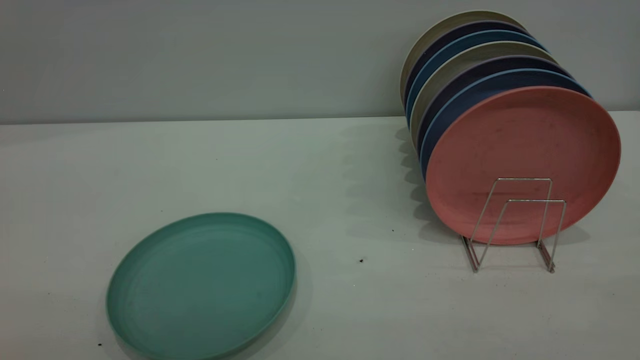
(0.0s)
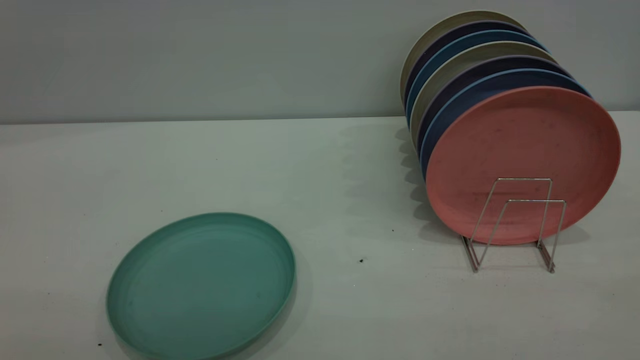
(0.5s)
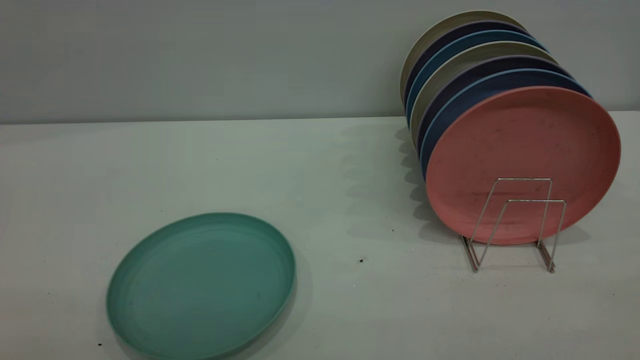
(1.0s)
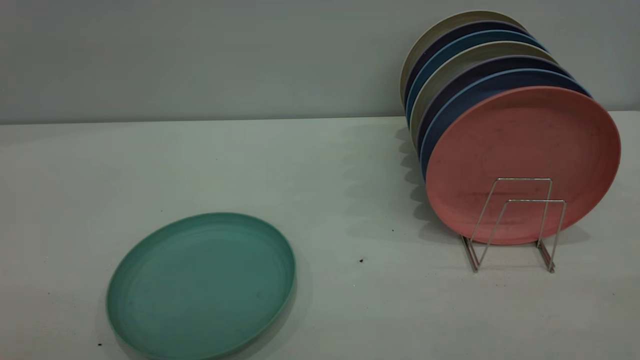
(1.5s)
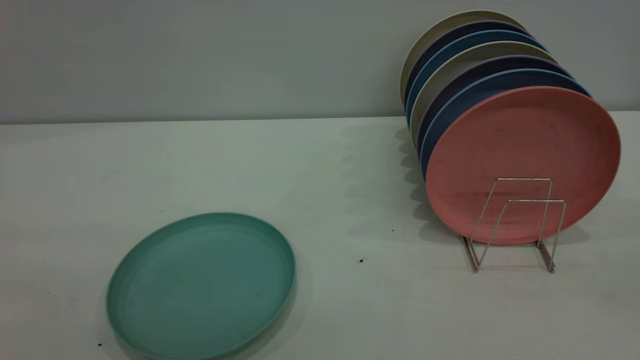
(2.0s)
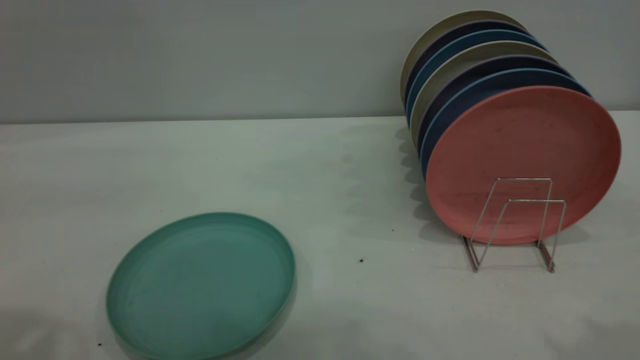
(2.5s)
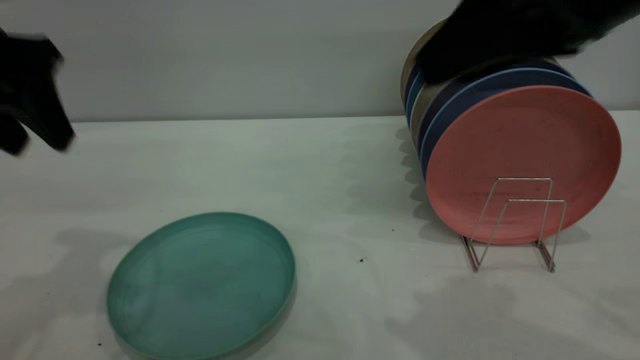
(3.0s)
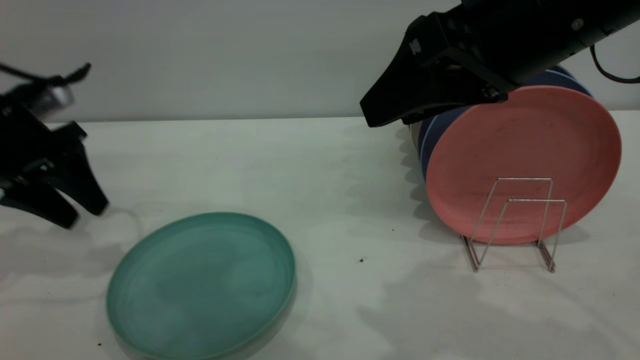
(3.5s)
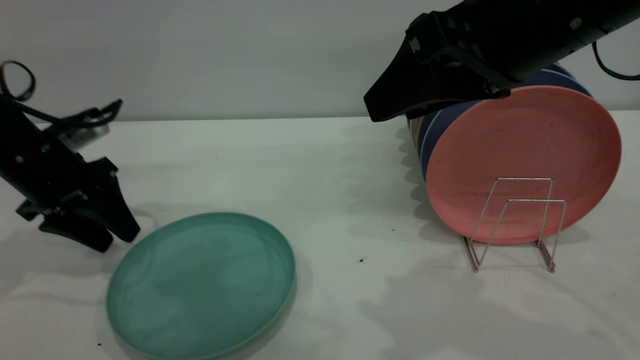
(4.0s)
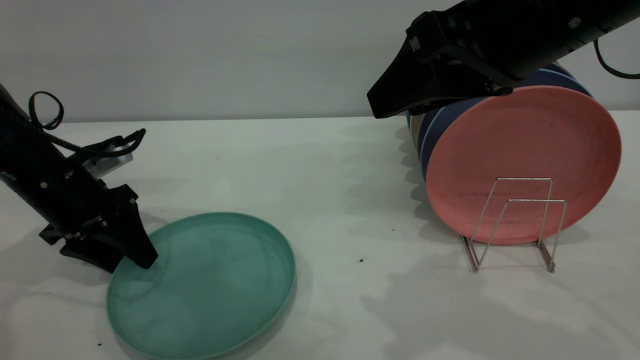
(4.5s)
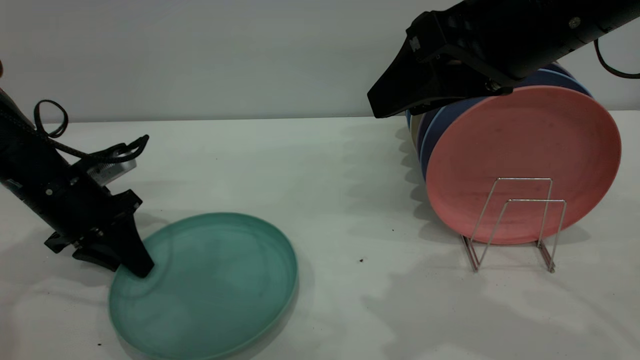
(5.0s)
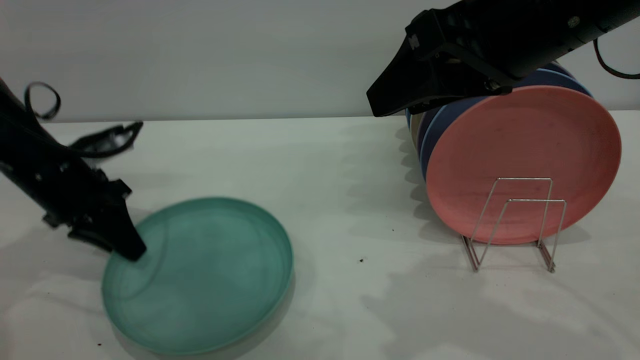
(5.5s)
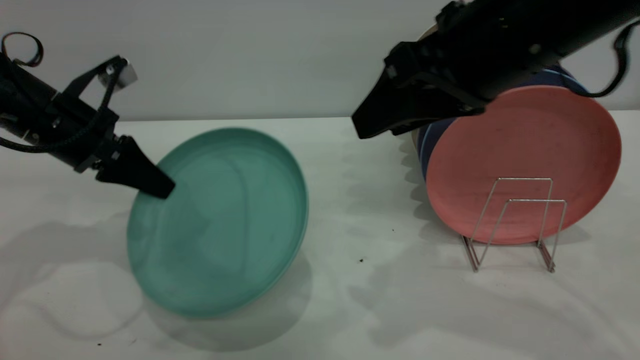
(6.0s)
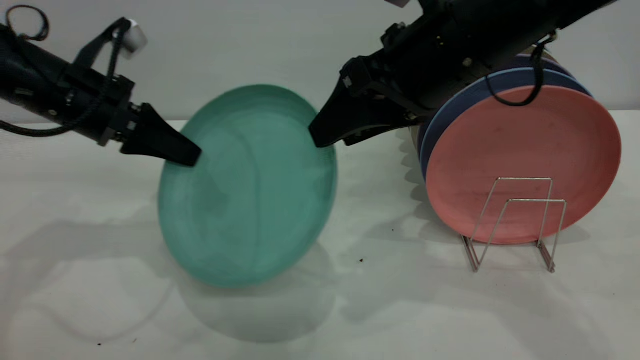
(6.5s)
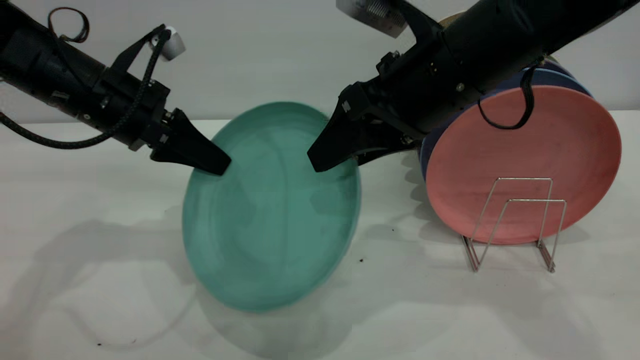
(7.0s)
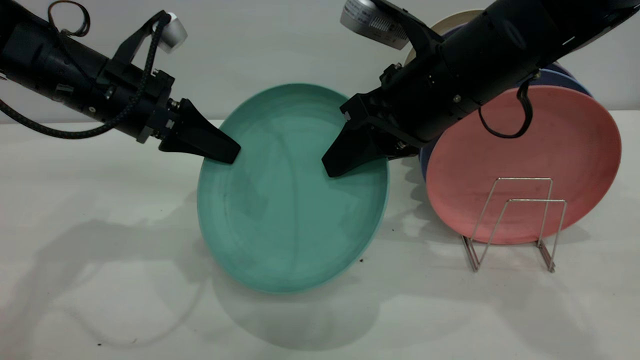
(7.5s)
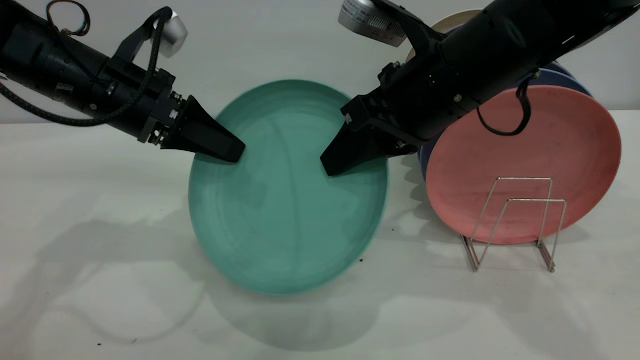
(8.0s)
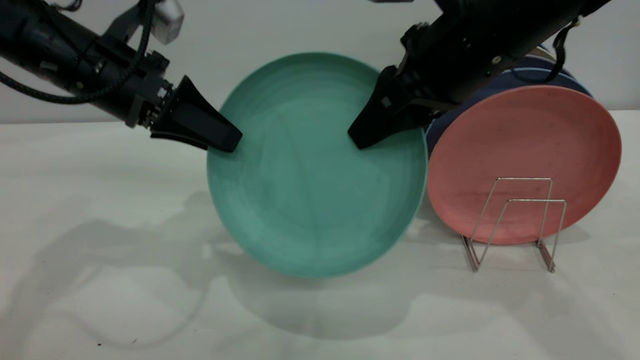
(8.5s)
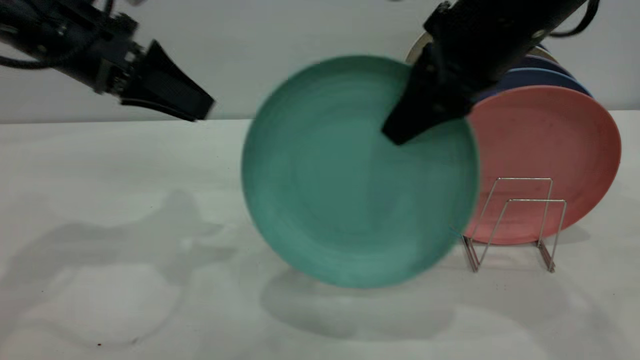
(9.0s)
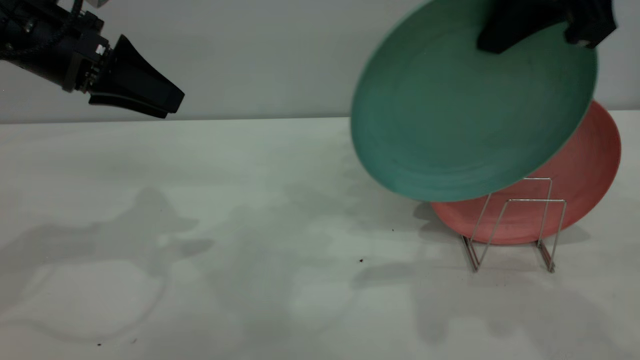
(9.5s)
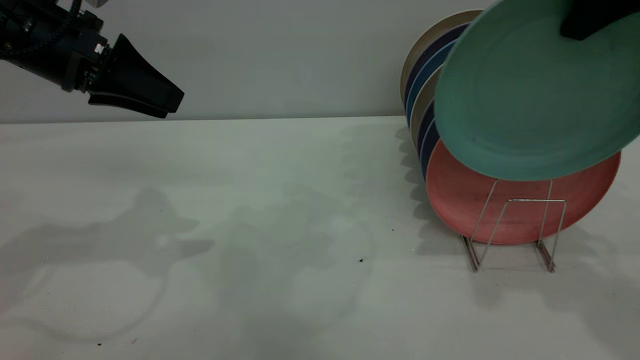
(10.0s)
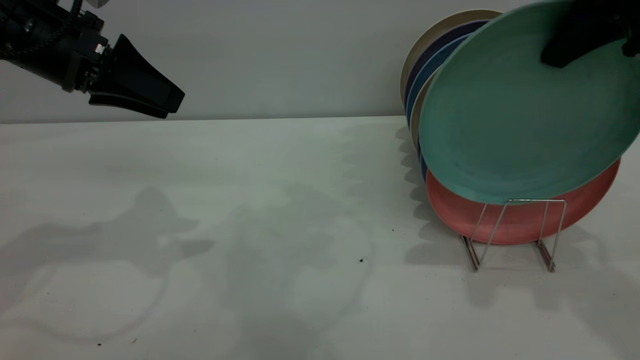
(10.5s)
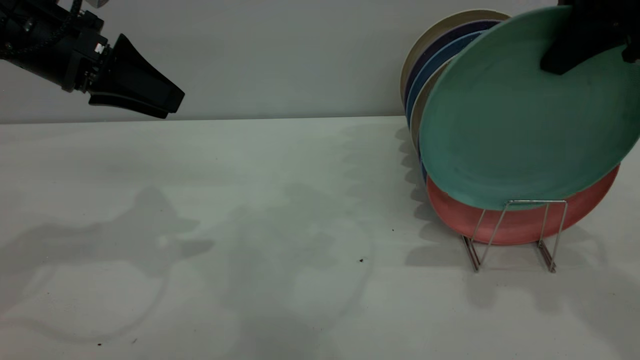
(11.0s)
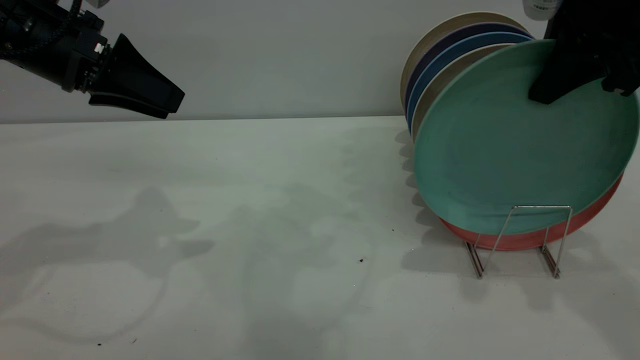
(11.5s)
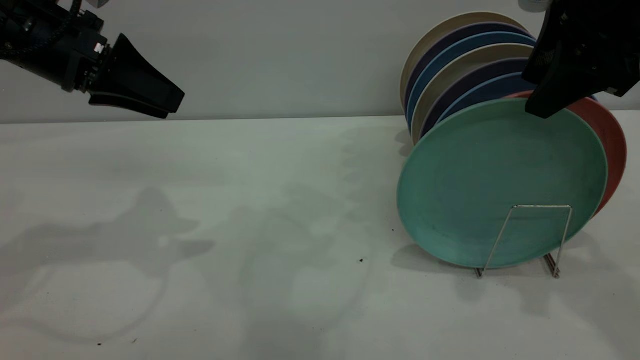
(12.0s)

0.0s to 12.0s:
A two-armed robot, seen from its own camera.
Task of the whole recording: the left gripper grasp the green plate, the left gripper pass the green plate to the right gripper, and the right gripper place the green plate on the plate rack.
Step, 0.0s to 5.5s: Pick up the plate with the left gripper.
Step, 6.0s to 8.5s: Pass the plate from the left gripper to the right gripper.
2.0s to 4.0s: The left gripper travels forward and downward by some 40 cm; the right gripper heads forward, to the left and downward, covering roughly 30 cm.
4.0s to 6.0s: The left gripper closes its fingers.
6.0s to 8.0s: The left gripper travels to the right by some 5 cm, and opens up; the right gripper goes some 5 cm downward, and closes.
8.0s to 10.0s: The left gripper shifts some 5 cm upward. Meanwhile the right gripper heads upward and to the right, covering roughly 20 cm.
10.0s to 12.0s: The right gripper changes place by approximately 5 cm, and opens.

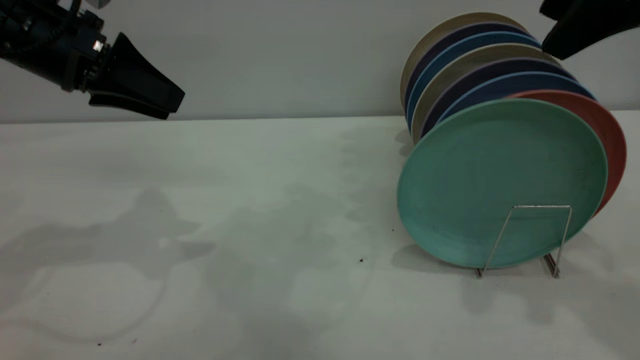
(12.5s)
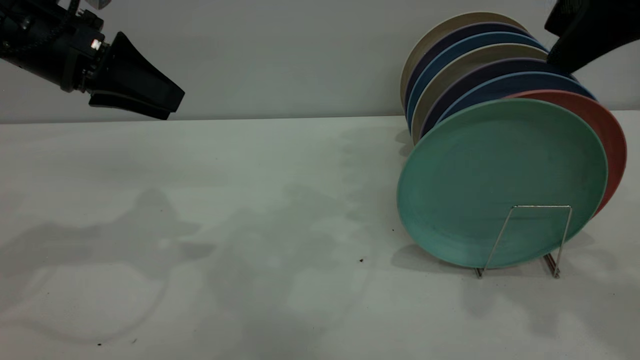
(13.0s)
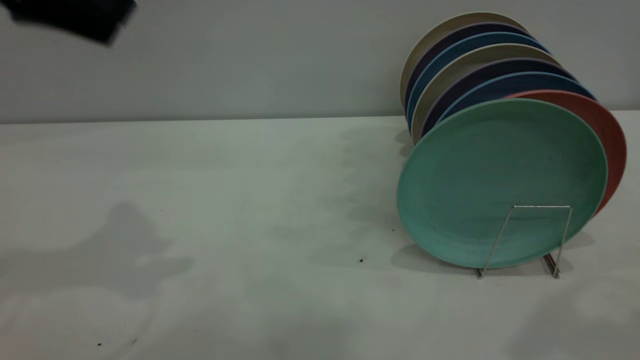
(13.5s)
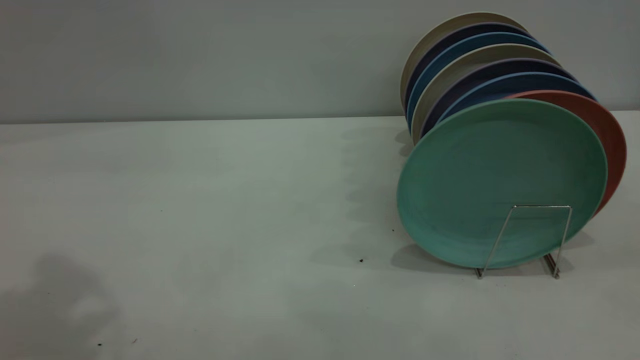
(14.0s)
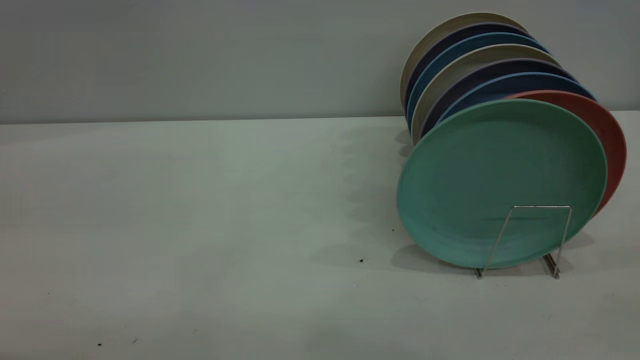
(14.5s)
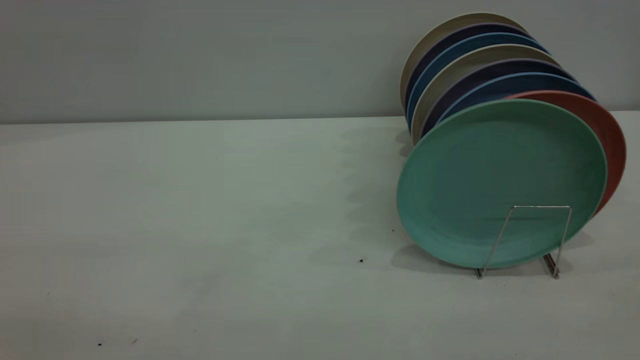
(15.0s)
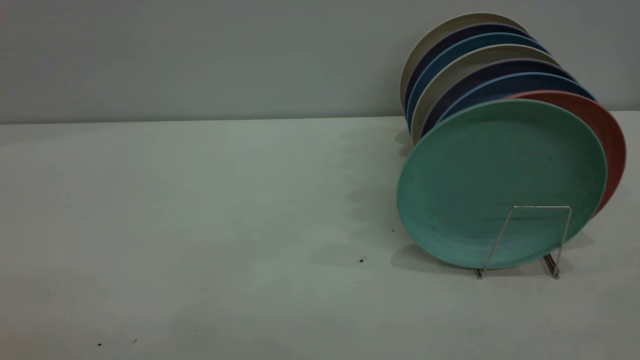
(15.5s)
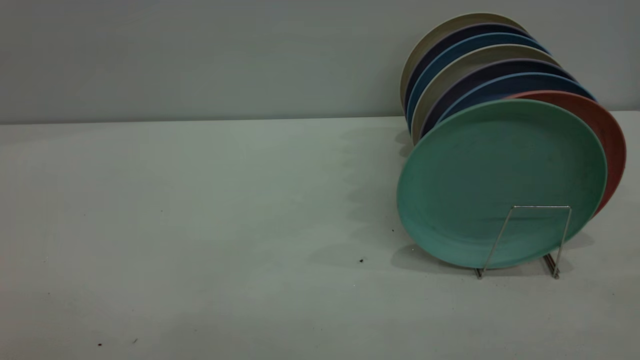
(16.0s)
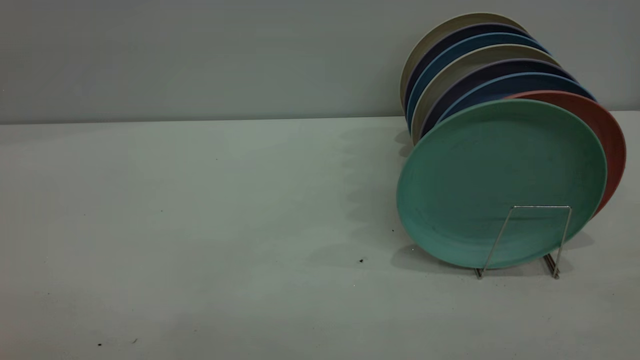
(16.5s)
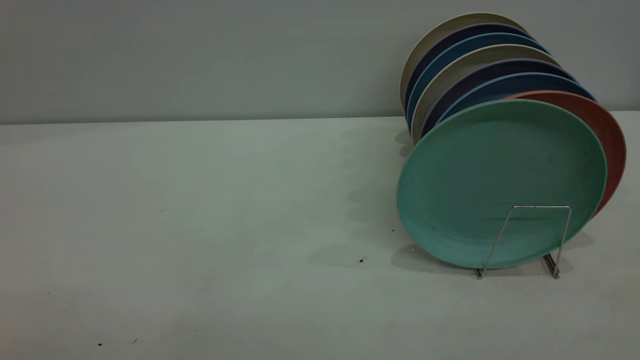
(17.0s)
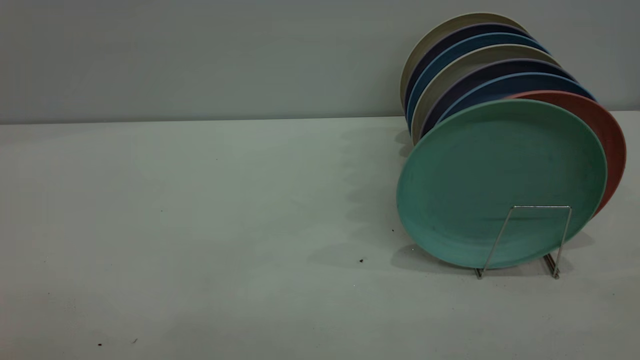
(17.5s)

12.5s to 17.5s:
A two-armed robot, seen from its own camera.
Task of the whole recording: the left gripper grasp the green plate, the left gripper pass the green plate to the right gripper, and the right gripper place the green plate on the plate rack.
12.5s to 15.0s: The two grippers go about 35 cm backward.
